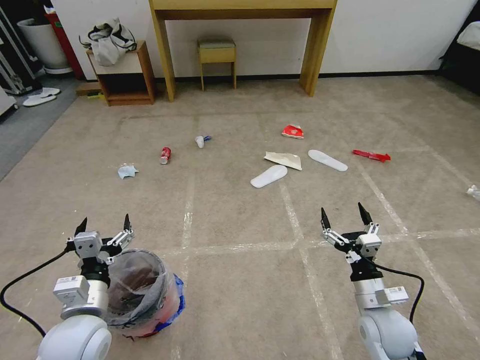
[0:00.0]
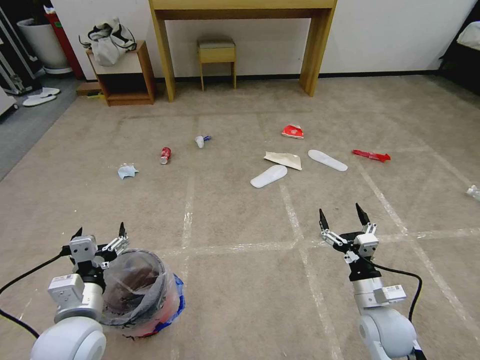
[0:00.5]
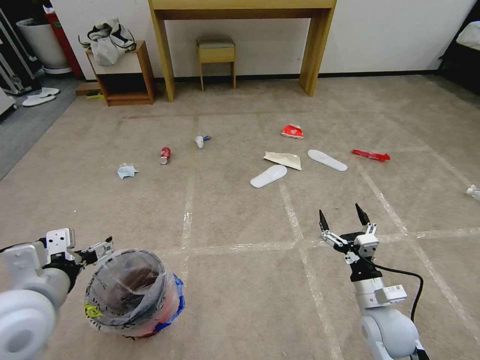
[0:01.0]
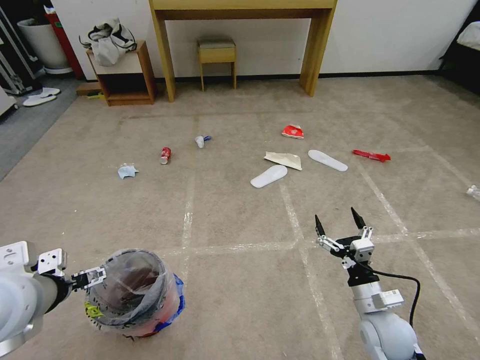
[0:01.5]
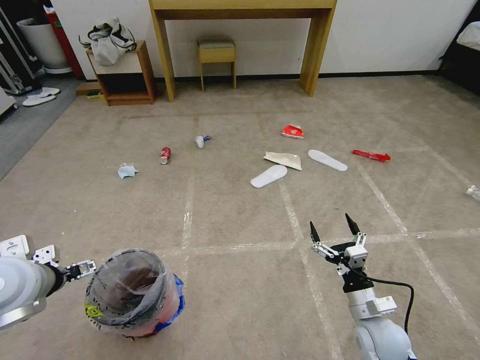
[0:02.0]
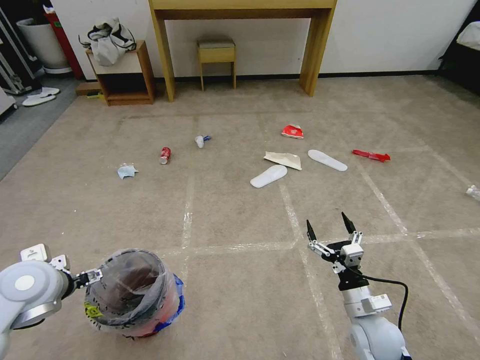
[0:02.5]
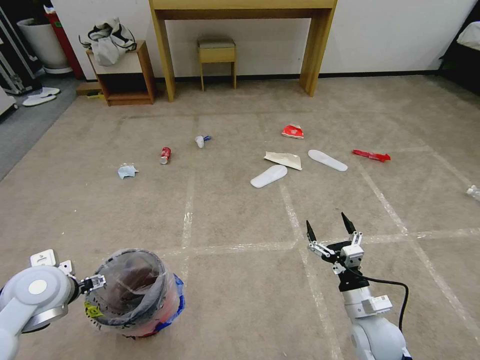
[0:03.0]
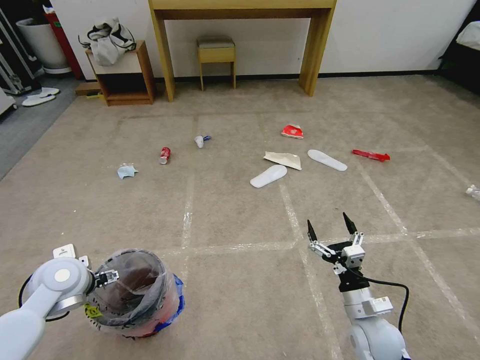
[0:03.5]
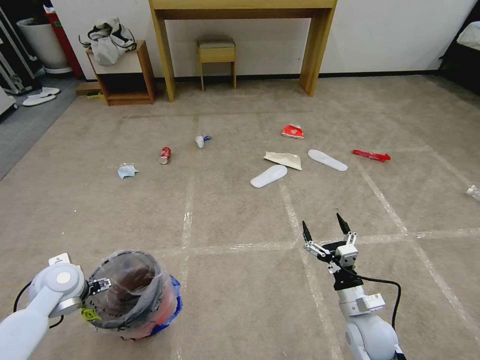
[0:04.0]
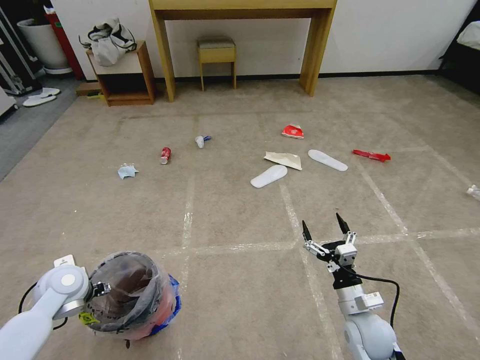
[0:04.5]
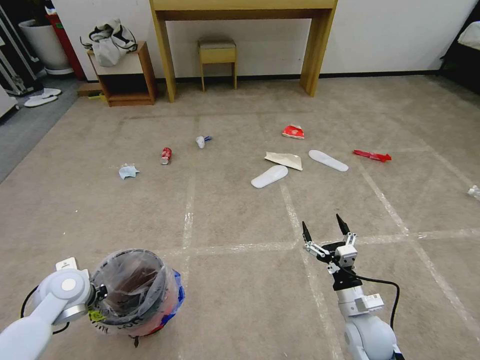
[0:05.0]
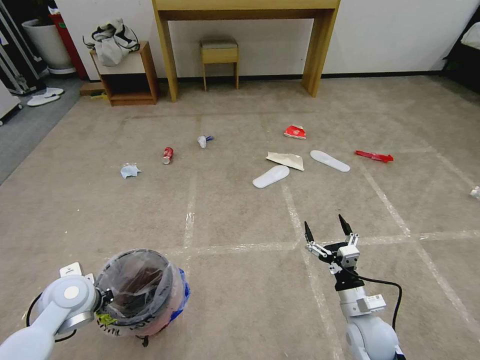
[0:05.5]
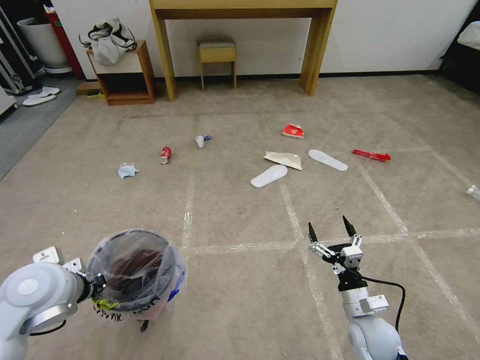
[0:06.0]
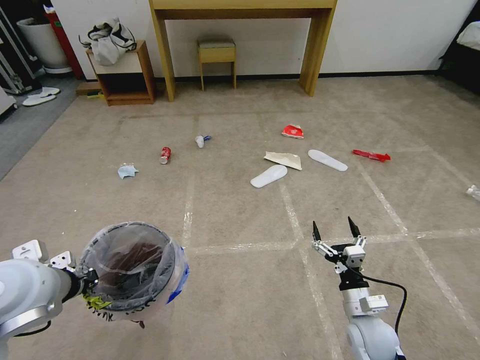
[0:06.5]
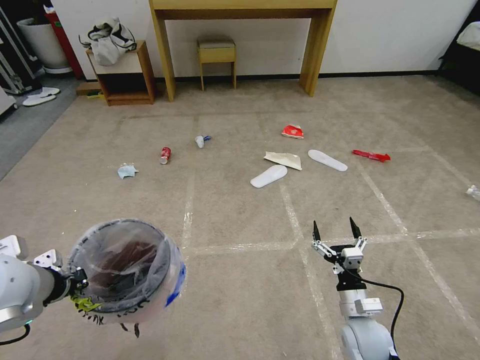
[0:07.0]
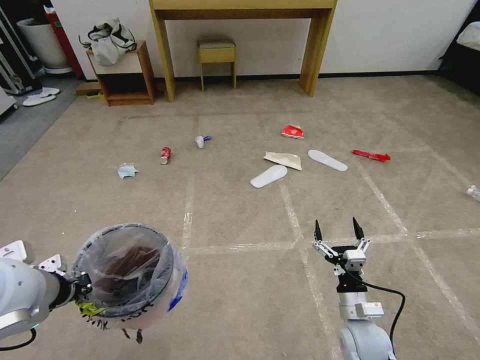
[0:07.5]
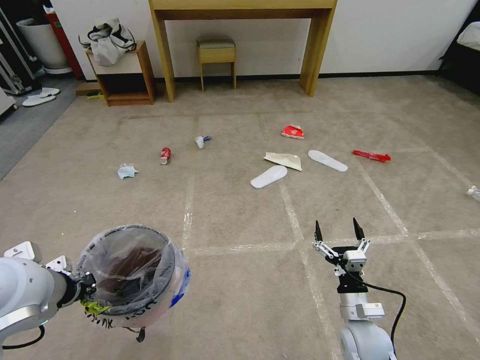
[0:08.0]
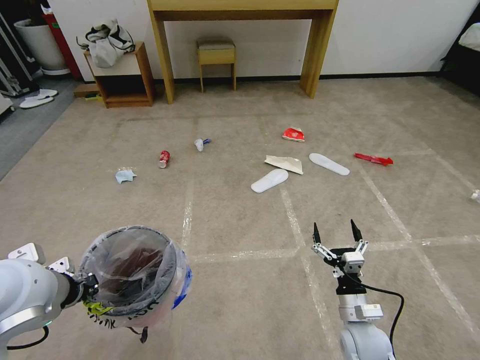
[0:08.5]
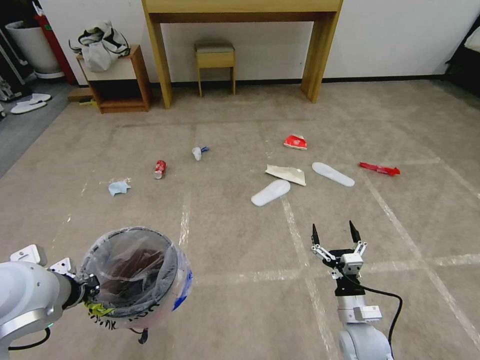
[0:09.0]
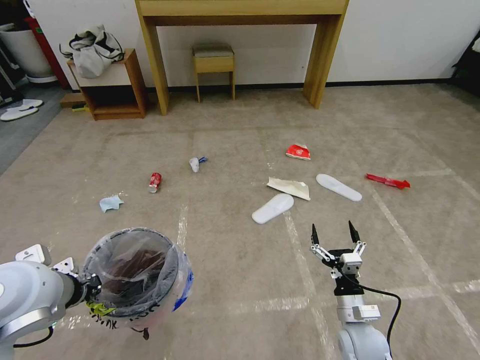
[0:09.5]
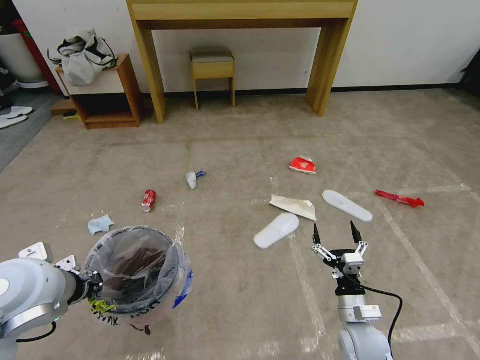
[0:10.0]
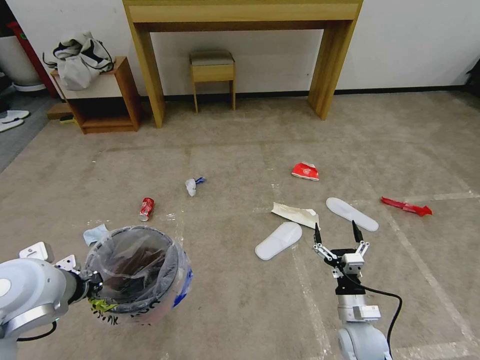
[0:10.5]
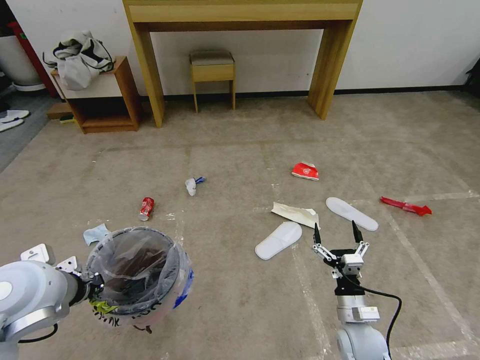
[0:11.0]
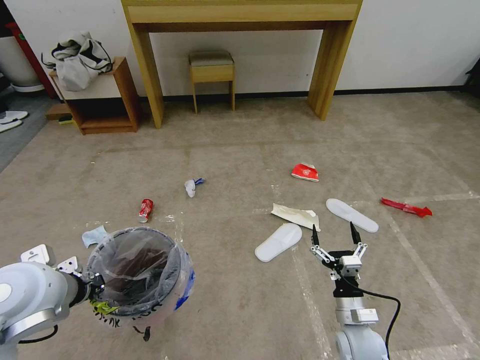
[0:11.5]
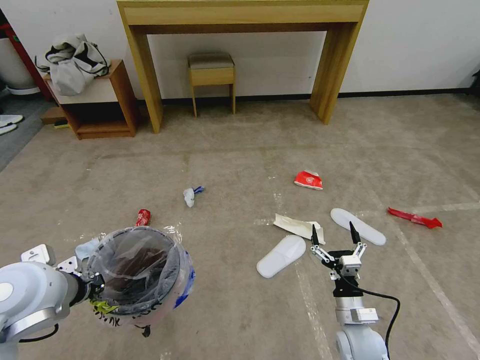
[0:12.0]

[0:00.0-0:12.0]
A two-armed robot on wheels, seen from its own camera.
Task of the whole recording: Pick up the trash bin and place the garbage on the floor into it.
0:02.0 to 0:04.0: The left gripper moves downward, about 15 cm.
0:04.0 to 0:06.0: The left gripper heads upward, to the right and backward, covering some 15 cm, and closes its fingers.
0:06.0 to 0:08.0: The left gripper heads upward, covering some 5 cm.

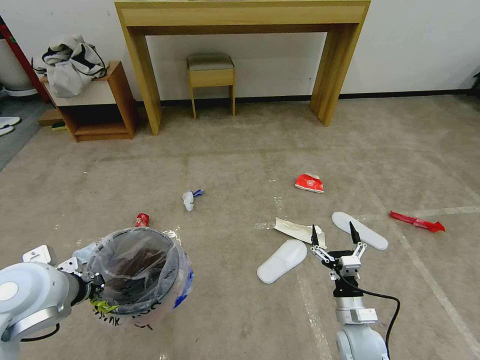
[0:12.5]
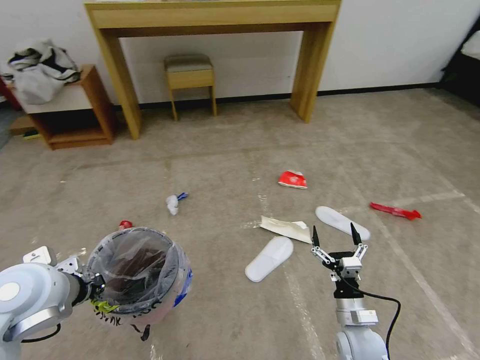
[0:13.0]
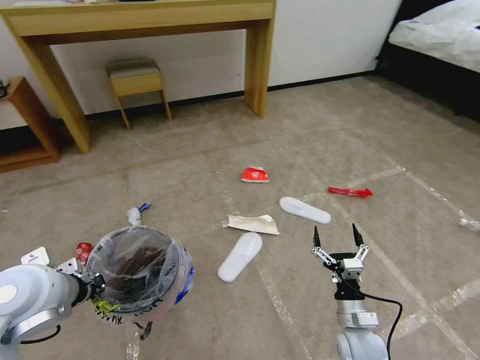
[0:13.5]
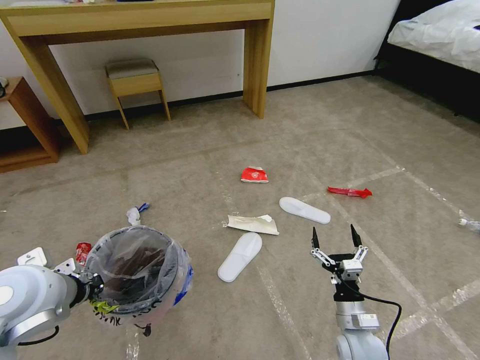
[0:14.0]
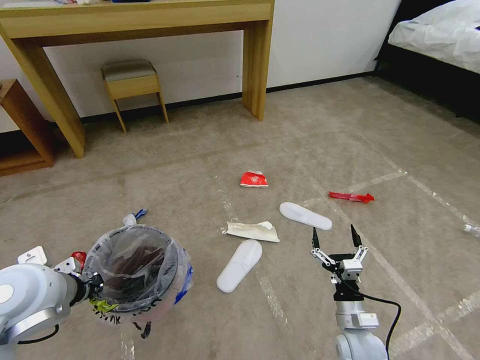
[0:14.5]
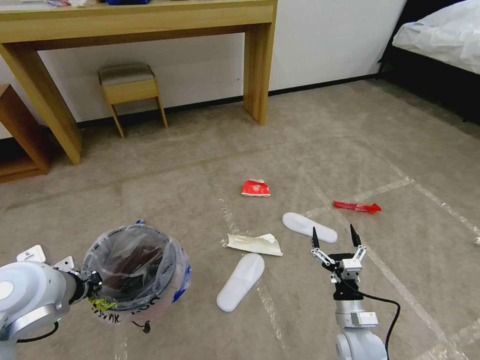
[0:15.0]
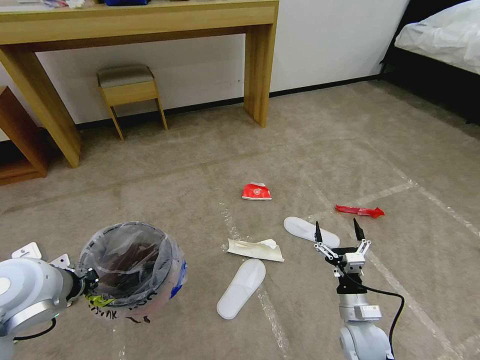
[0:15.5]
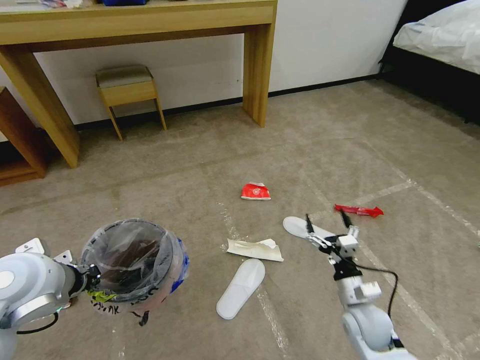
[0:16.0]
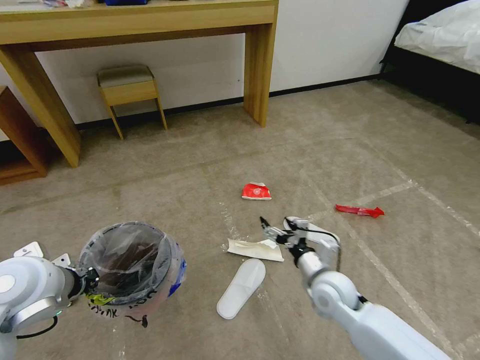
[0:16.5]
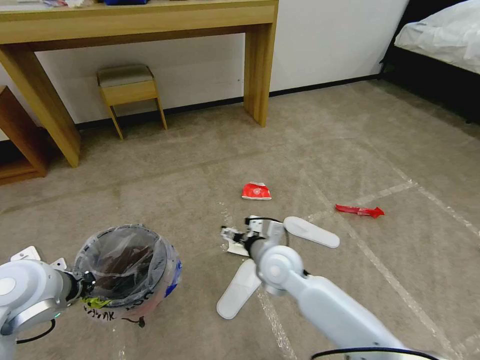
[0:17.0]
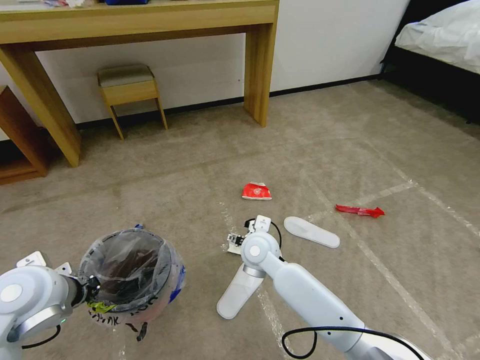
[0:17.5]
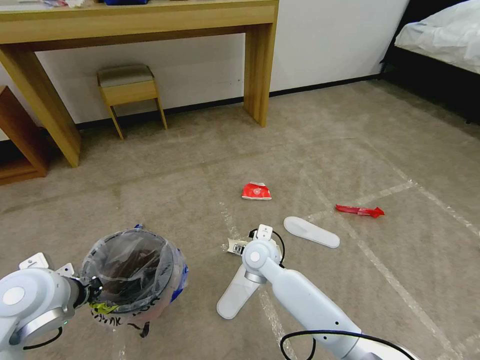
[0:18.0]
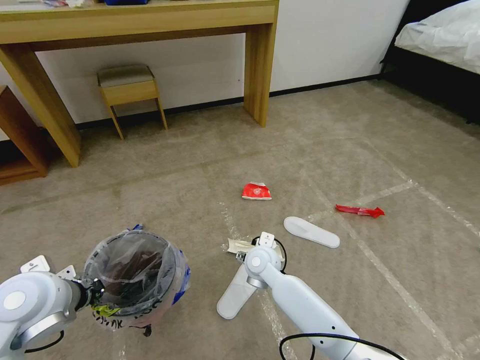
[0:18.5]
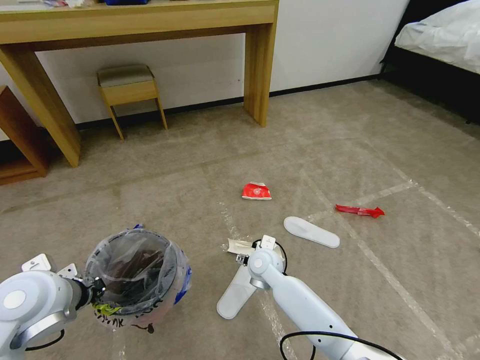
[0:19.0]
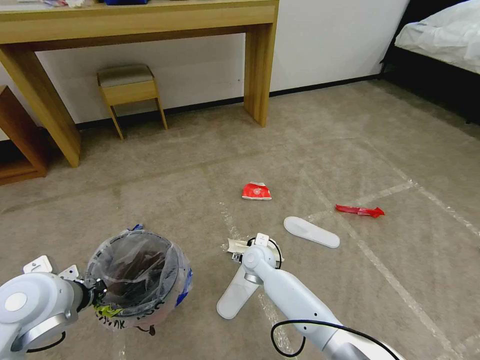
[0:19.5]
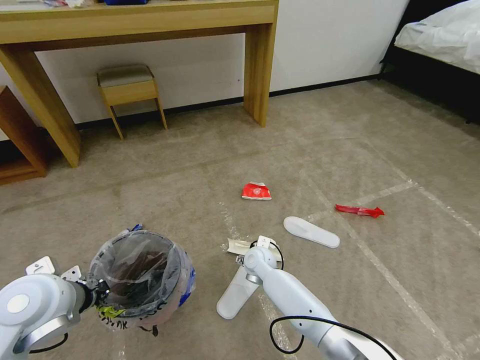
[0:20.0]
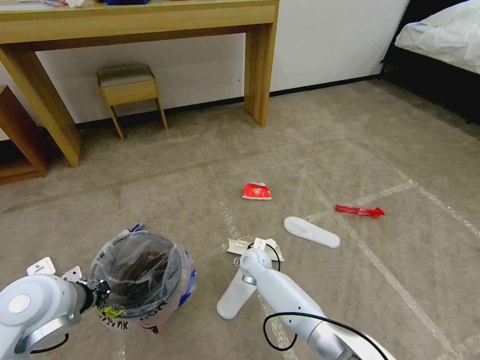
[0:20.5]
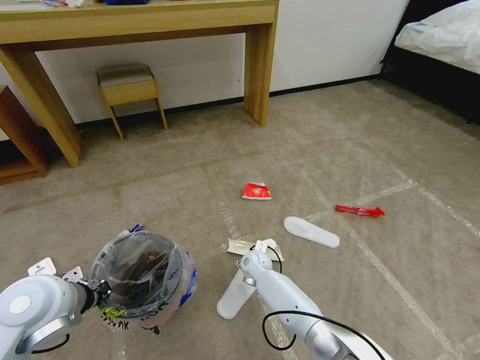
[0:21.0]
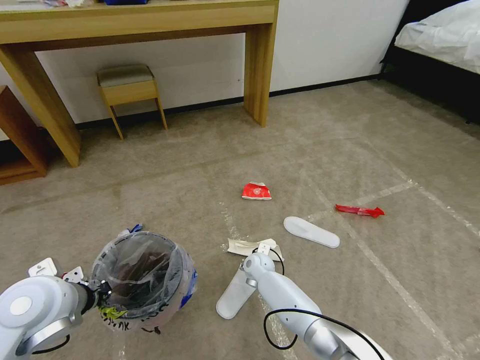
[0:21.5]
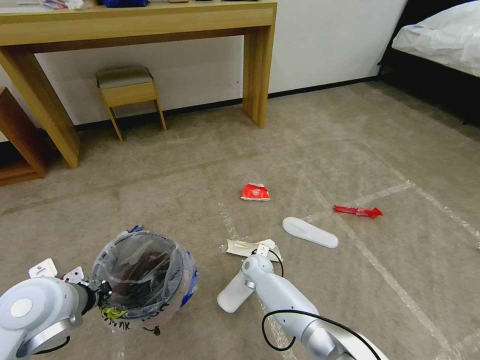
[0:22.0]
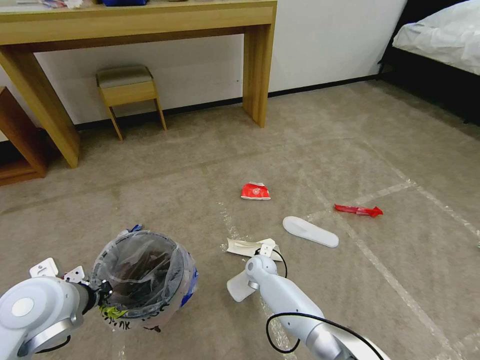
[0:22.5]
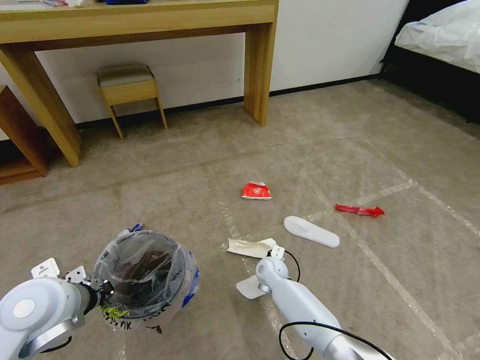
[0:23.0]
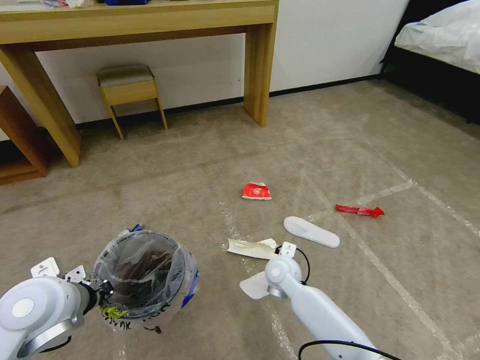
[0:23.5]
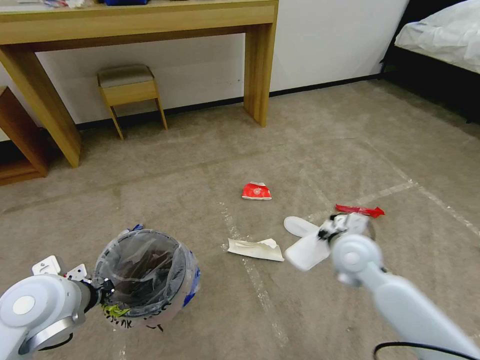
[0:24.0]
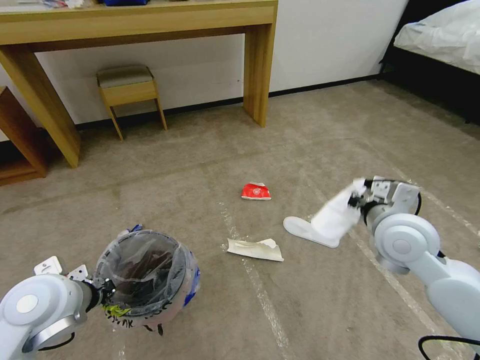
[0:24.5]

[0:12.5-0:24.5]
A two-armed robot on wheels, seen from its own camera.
Task of the whole recording: Pick up the trash bin and place the garbage on the floor into it.
0:14.5 to 0:16.5: The right gripper moves forward, upward and to the left, about 15 cm.
0:16.5 to 0:18.5: The right gripper is displaced to the left and forward by roughly 15 cm.
0:18.5 to 0:20.5: The right gripper is displaced downward by roughly 10 cm.
0:20.5 to 0:22.5: The right gripper closes.
0:22.5 to 0:24.5: The right gripper travels upward and to the right by approximately 40 cm, and closes.

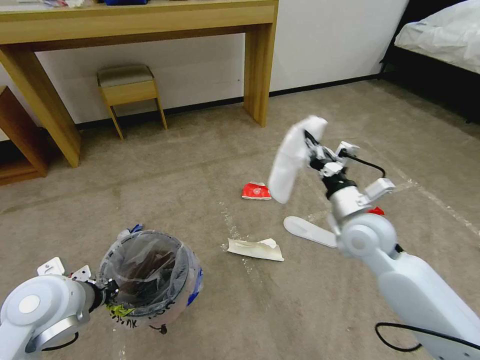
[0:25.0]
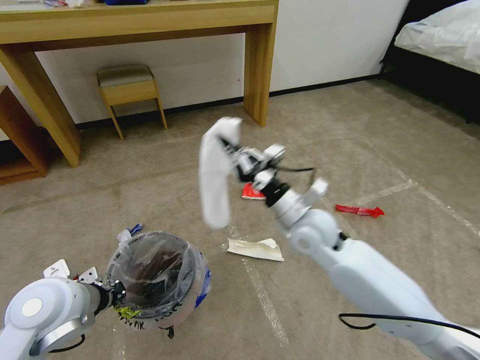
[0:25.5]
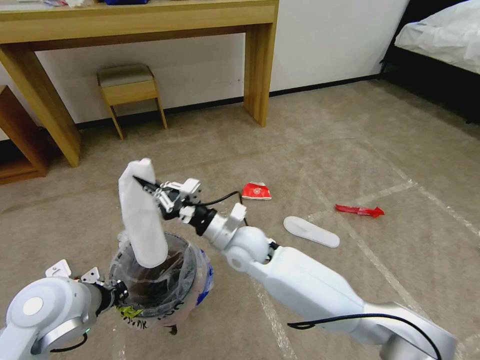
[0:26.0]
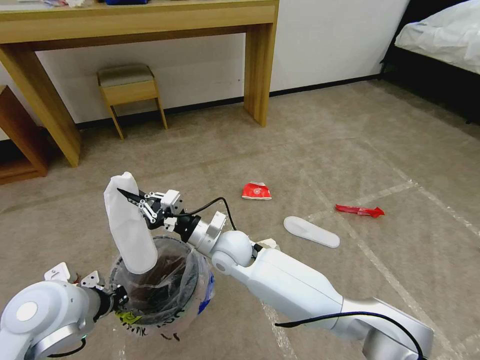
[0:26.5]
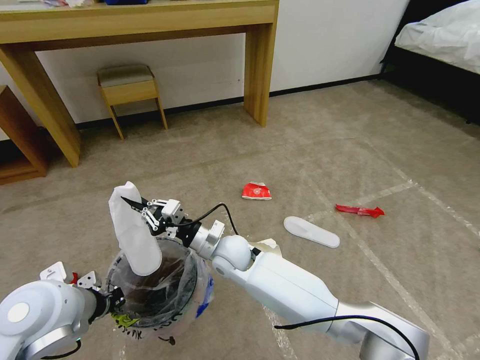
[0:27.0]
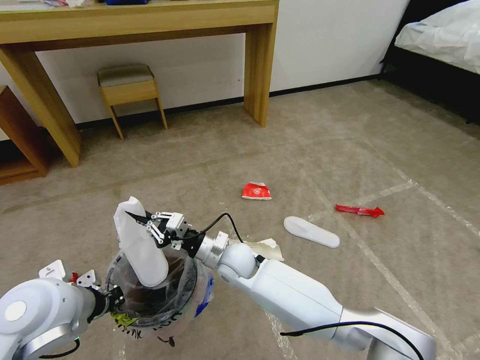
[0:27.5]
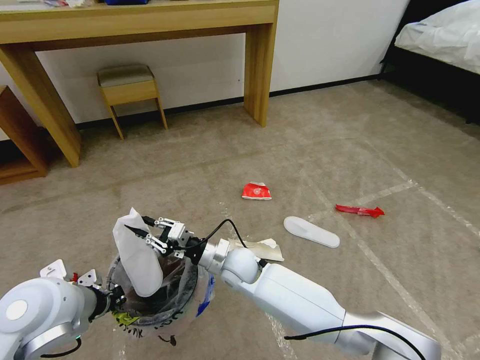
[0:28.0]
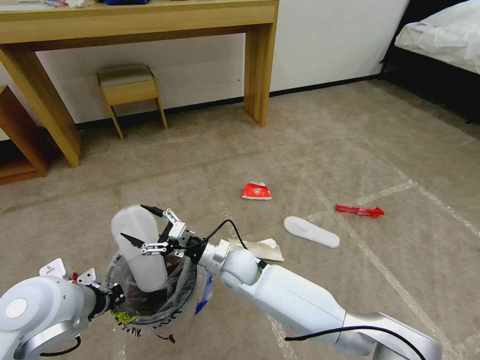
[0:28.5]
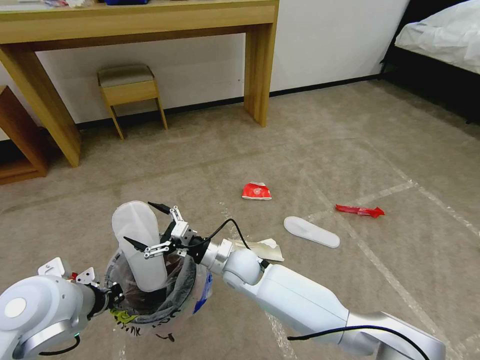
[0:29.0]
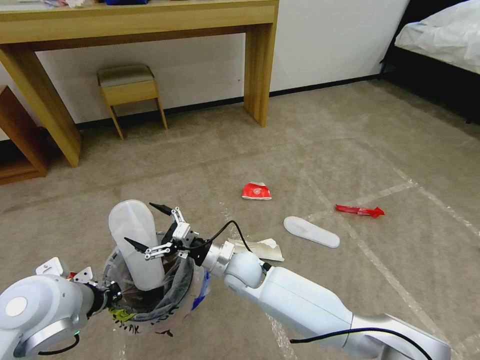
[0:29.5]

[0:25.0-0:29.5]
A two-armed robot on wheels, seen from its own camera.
Task of the whole recording: Pick up the trash bin and place the garbage on the floor into it.
0:25.0 to 0:27.0: The right gripper heads to the left and downward, covering approximately 30 cm.
0:27.0 to 0:29.5: The right gripper shifts by about 5 cm, and opens its fingers.
